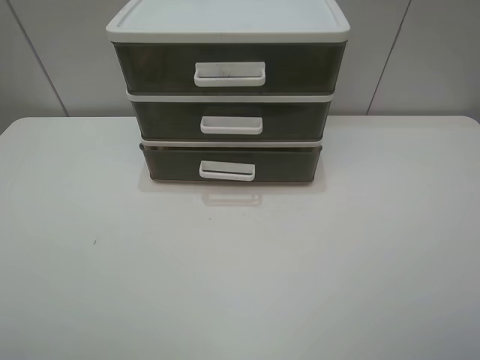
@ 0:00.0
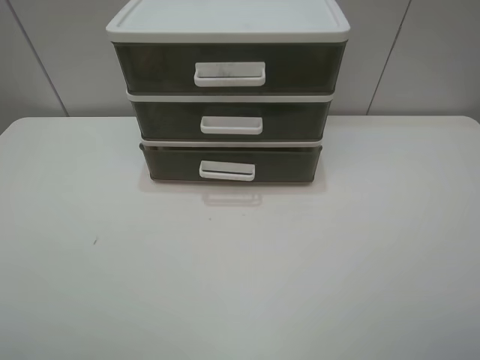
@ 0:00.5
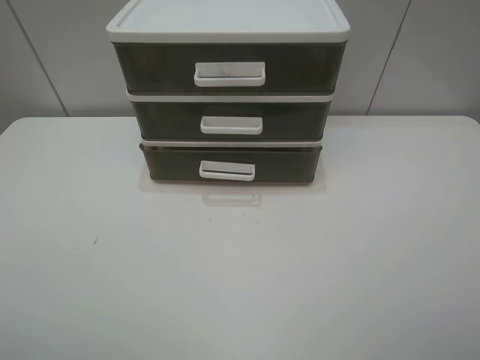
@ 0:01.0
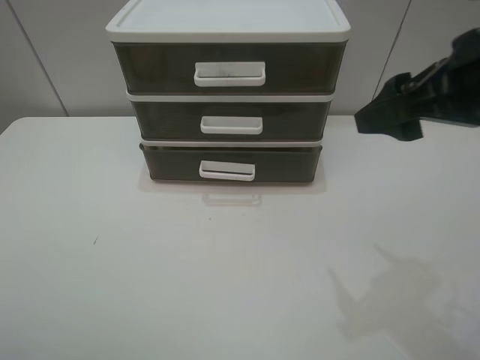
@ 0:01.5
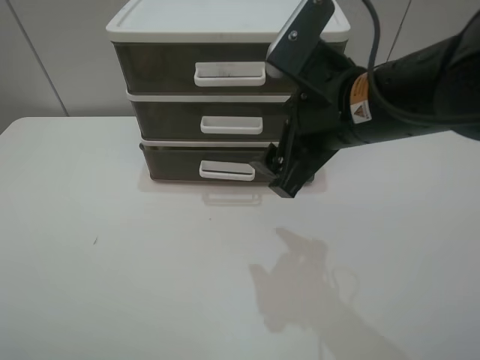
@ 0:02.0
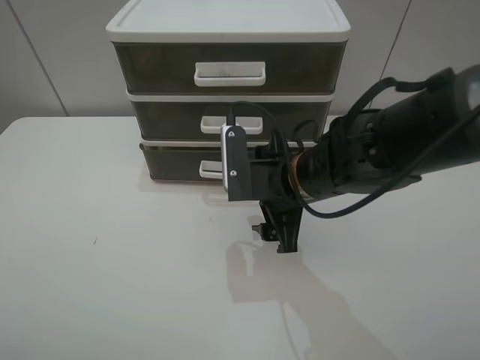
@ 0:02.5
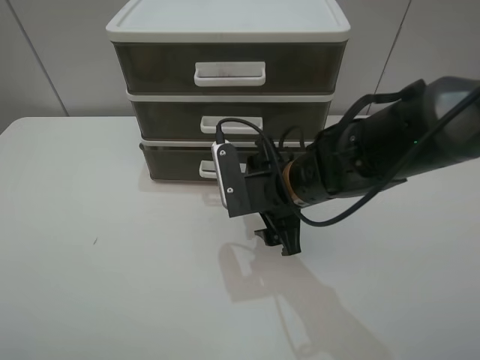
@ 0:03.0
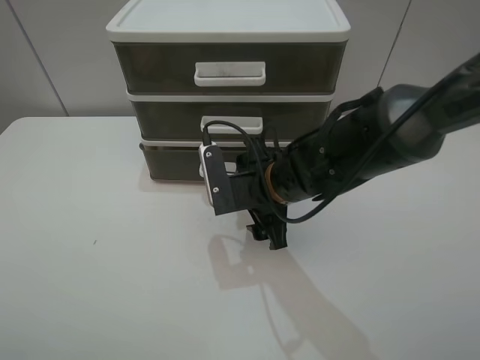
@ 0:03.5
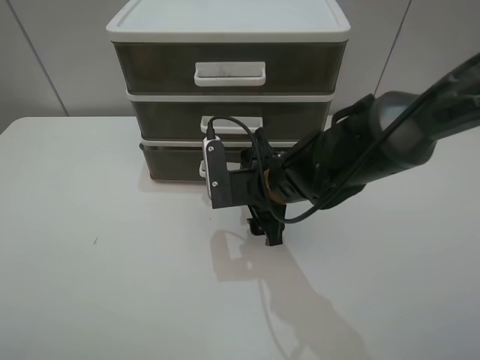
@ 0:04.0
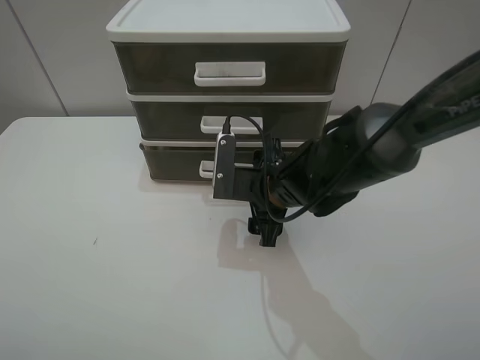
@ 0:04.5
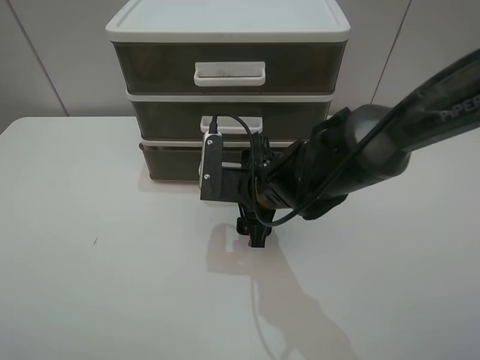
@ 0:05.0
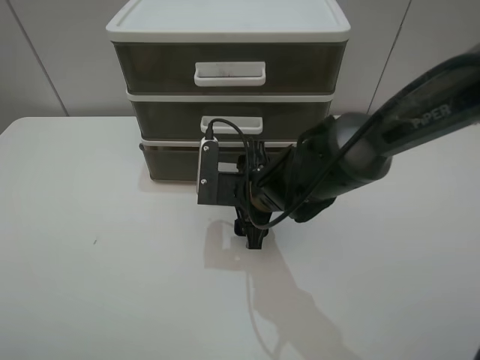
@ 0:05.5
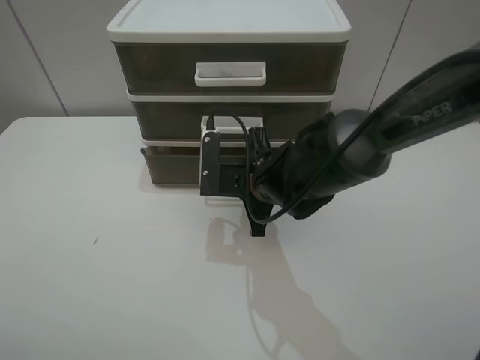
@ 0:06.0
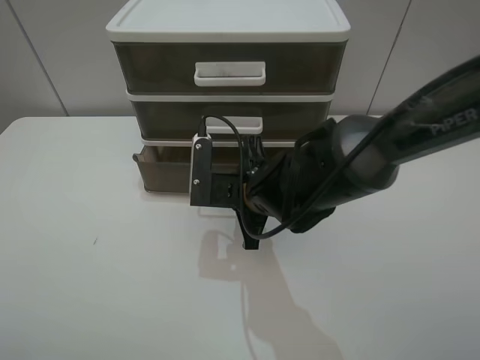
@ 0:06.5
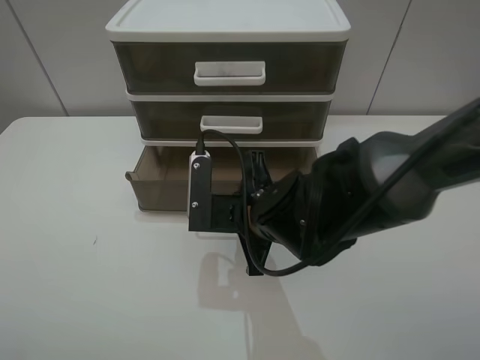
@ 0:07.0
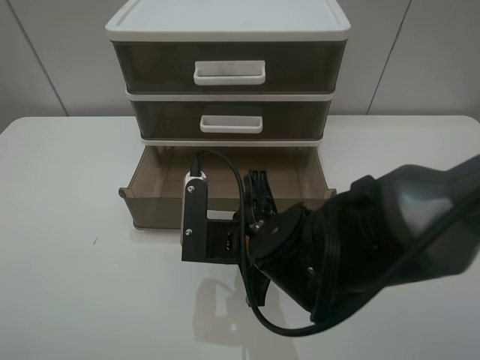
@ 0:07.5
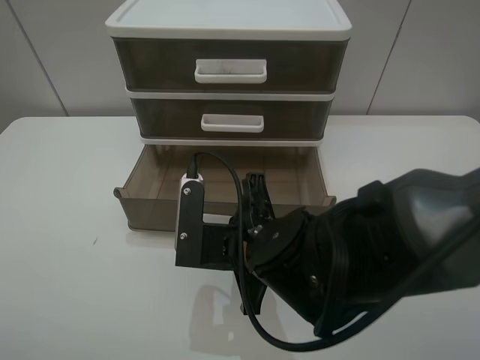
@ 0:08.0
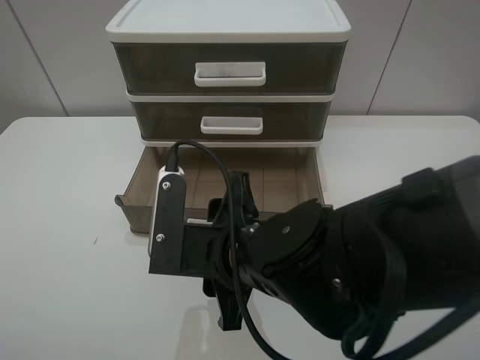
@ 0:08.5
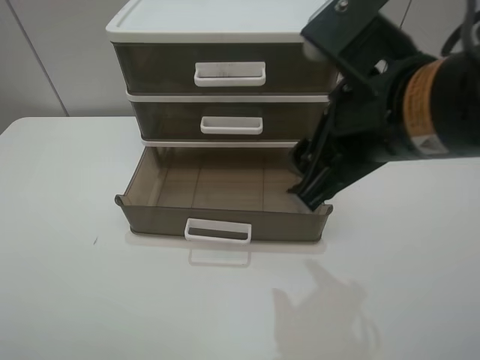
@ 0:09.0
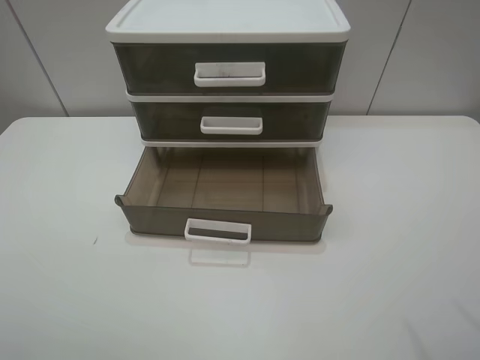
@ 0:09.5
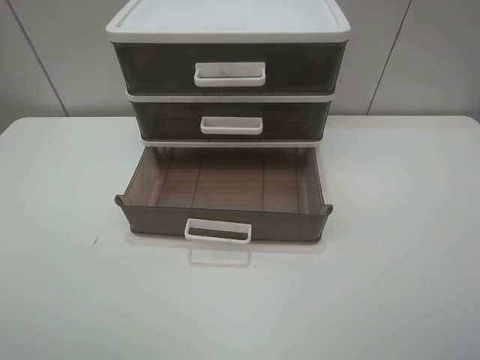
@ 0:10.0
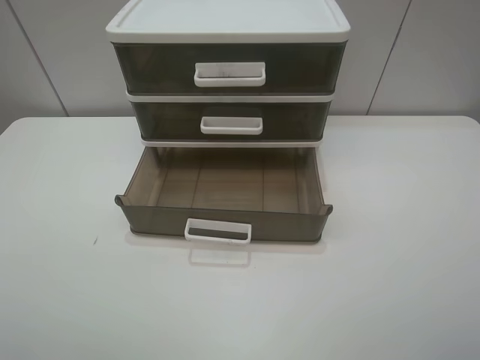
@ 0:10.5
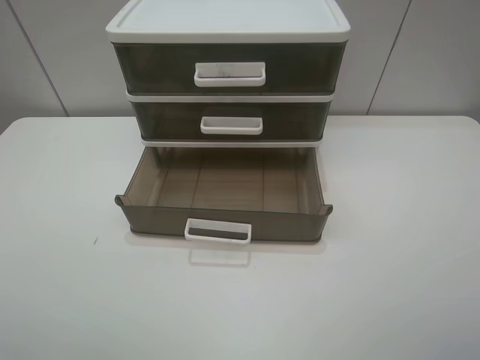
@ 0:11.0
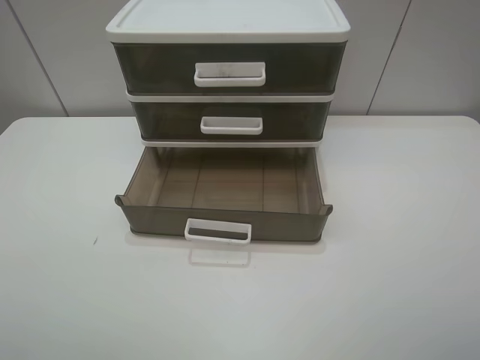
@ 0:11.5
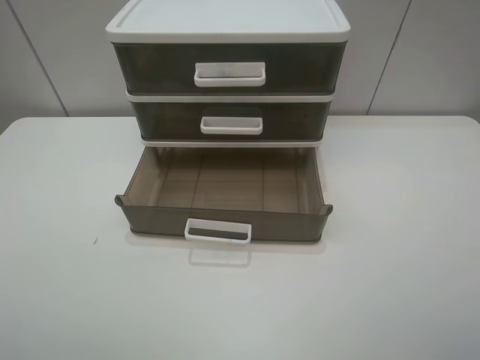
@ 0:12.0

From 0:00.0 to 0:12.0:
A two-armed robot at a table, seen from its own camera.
Task of the whole recording: open the bottom drawer.
Step, from 0:00.0 to 0:06.0: Grab the bottom drawer with the right gripper.
Step, from 0:06.5 to 0:08.5: Pull open the drawer with the right gripper.
From 0:00.0 to 0:02.0: The right gripper goes roughly 30 cm forward and to the left.
From 0:02.0 to 0:04.0: The right gripper heads downward, covering about 15 cm.
From 0:04.0 to 0:06.0: The right gripper closes its fingers.
From 0:06.0 to 0:08.0: The right gripper heads backward, covering approximately 10 cm.
From 0:08.0 to 0:10.0: The right gripper is displaced to the right, upward and backward by about 35 cm, and opens up.
